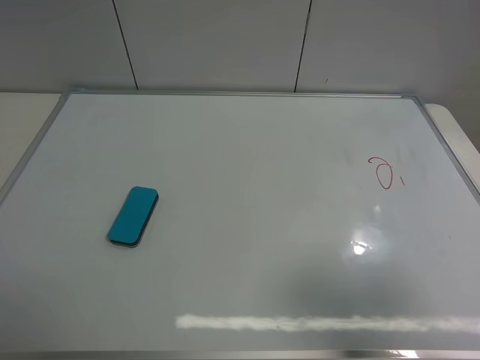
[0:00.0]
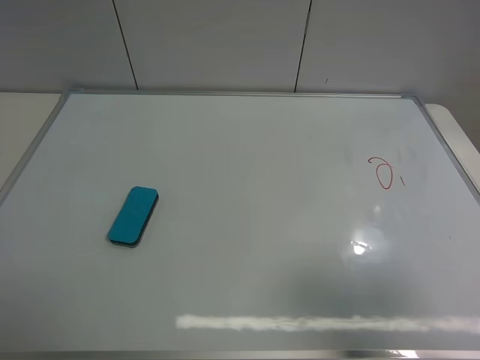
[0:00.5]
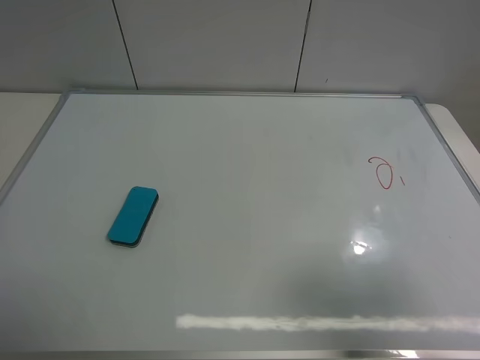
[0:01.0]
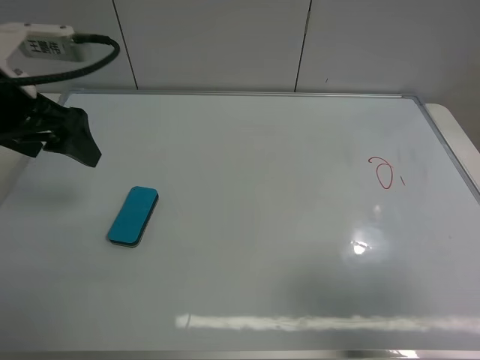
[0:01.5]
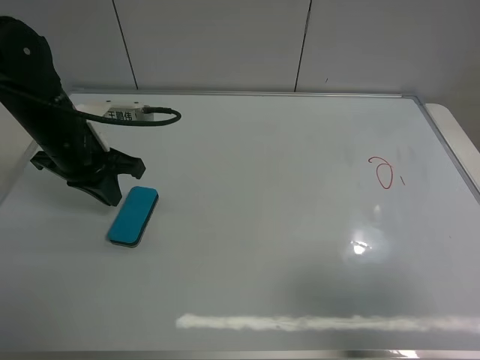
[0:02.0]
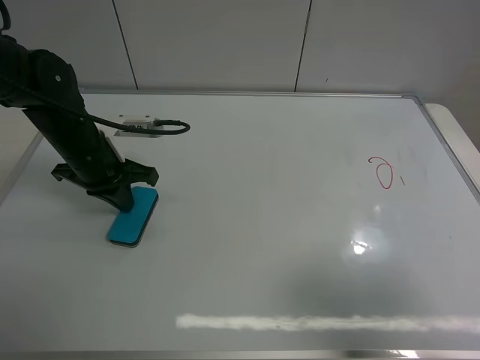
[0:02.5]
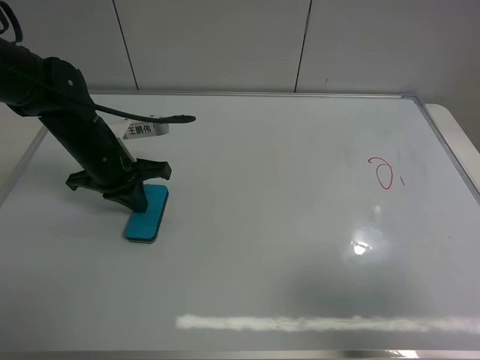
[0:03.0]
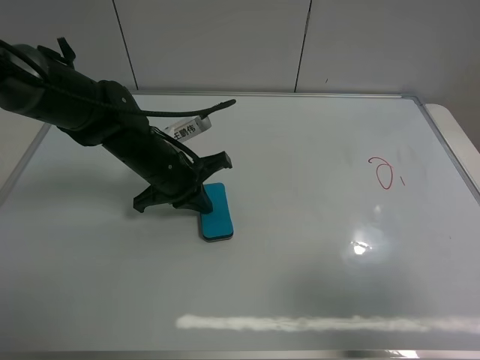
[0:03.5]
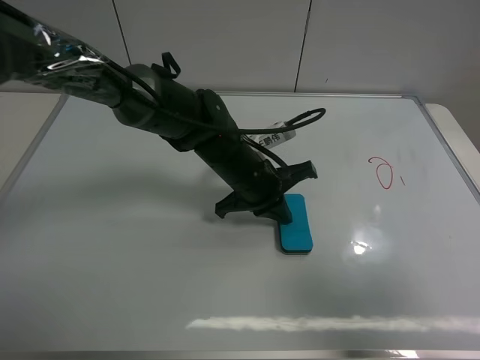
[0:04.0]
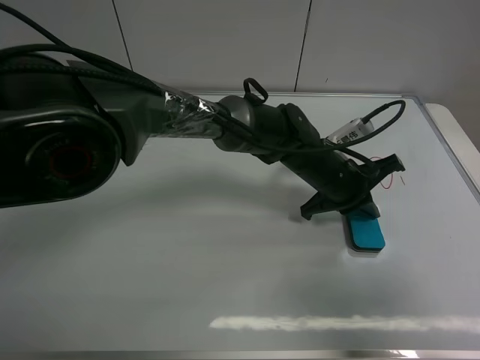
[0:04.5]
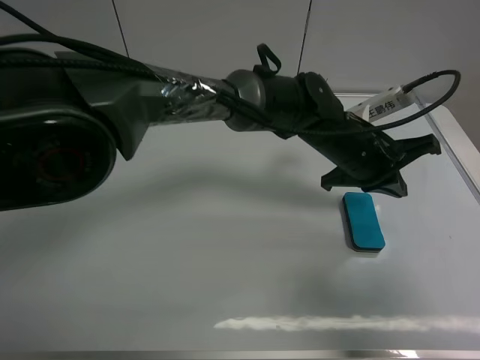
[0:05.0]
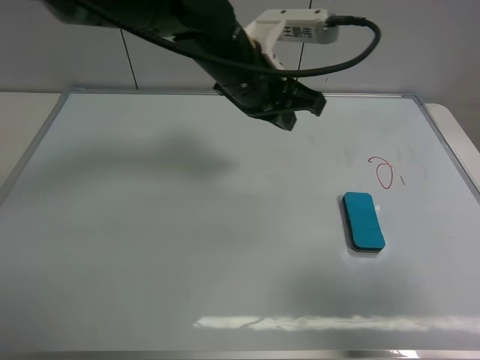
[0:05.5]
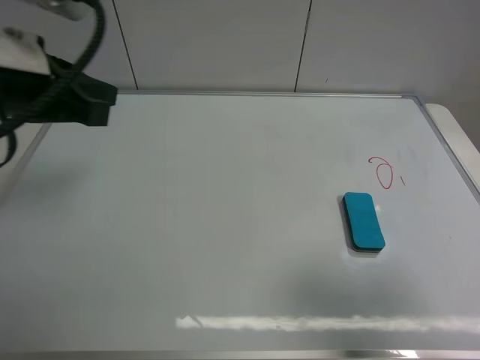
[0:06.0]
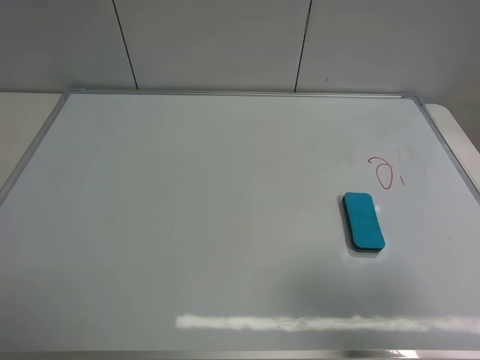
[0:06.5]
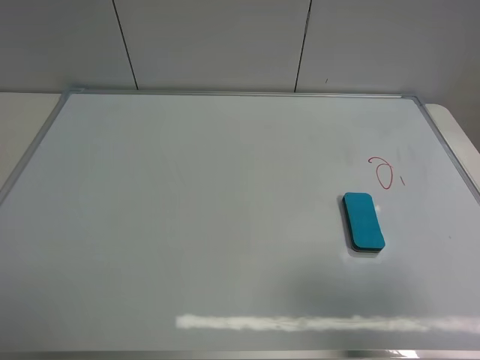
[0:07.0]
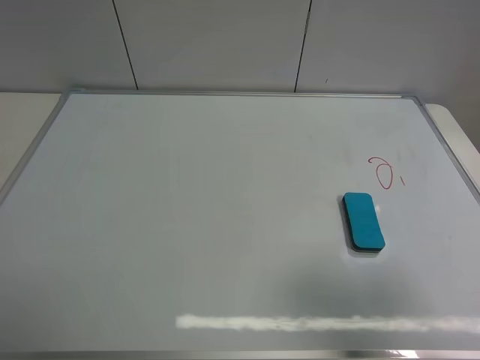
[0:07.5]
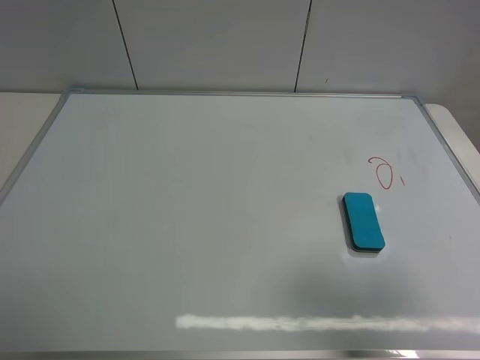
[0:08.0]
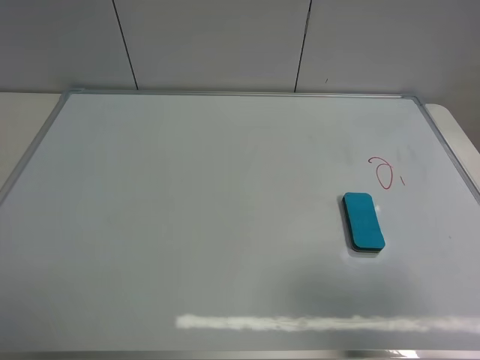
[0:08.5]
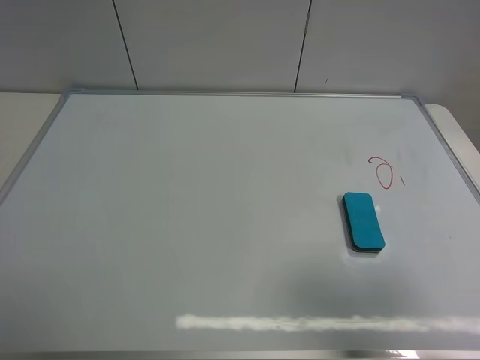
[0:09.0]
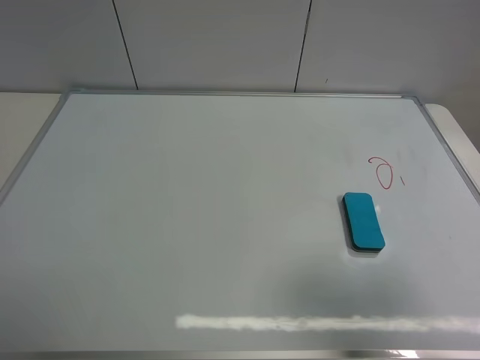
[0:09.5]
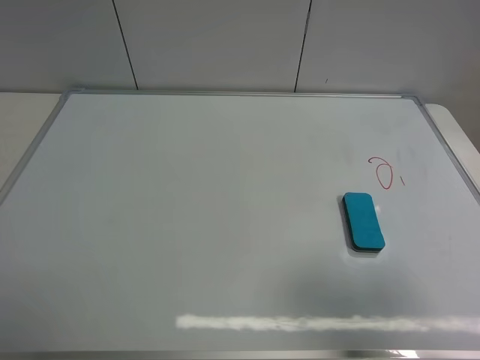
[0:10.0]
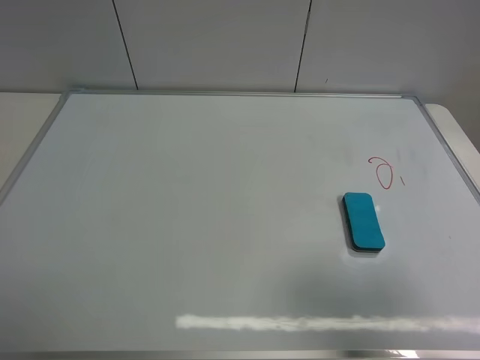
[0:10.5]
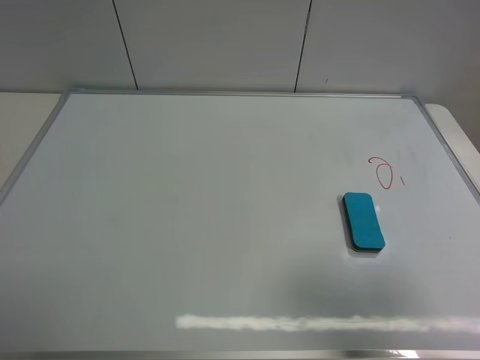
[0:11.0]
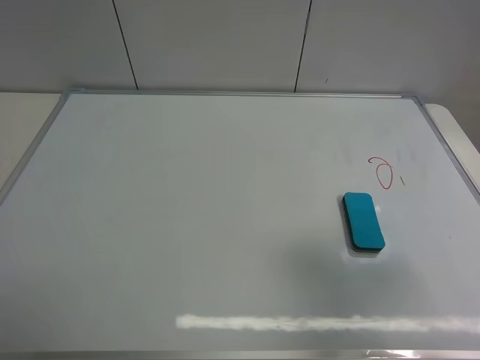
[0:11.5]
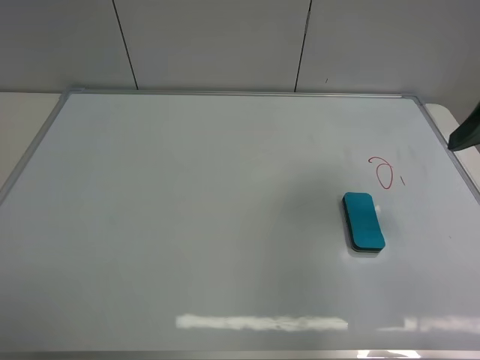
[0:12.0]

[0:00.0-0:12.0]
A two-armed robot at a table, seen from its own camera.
Task of the whole recording: use the left gripper to place the eraser in the right, use the right gripper to pick up the eraser, wipe the notes on the whiteboard clean, and then put it down.
Step, 0:00.0 to 0:04.0: Move the board eraser to the right of the whiteboard with left gripper.
0:00.0 to 0:02.0: The left gripper travels forward by roughly 30 cm, and closes.
0:02.0 to 0:04.0: The left gripper shifts roughly 20 cm to the right.
0:04.0 to 0:06.0: The left gripper is displaced to the left, upward and backward by roughly 30 cm.
0:06.0 to 0:08.0: The left gripper goes approximately 20 cm backward and to the left, and opens up.
0:10.0 to 0:12.0: The right gripper goes approximately 20 cm forward.

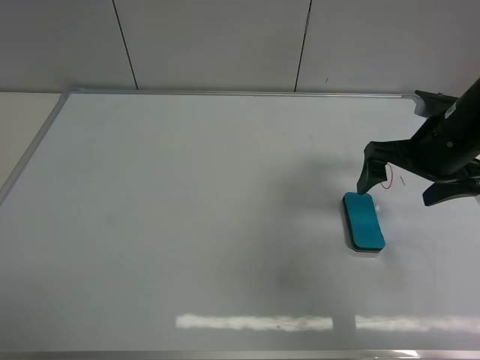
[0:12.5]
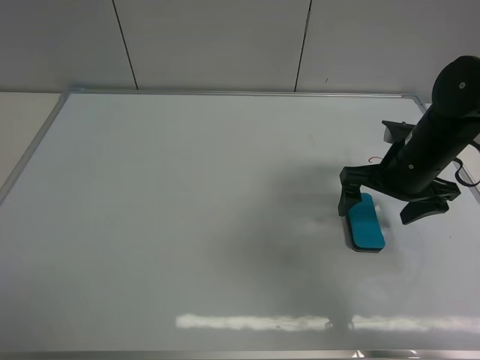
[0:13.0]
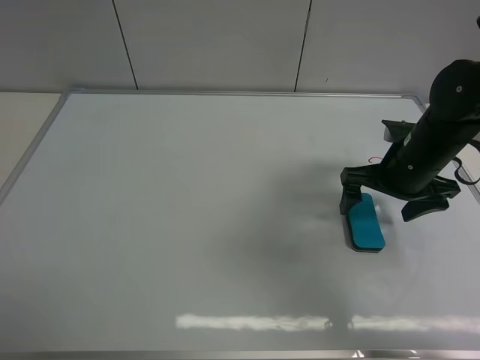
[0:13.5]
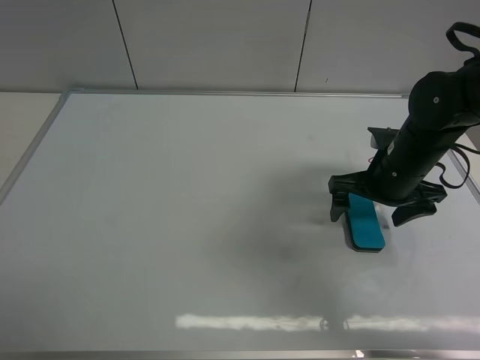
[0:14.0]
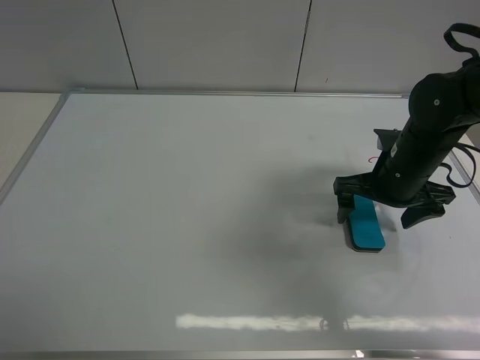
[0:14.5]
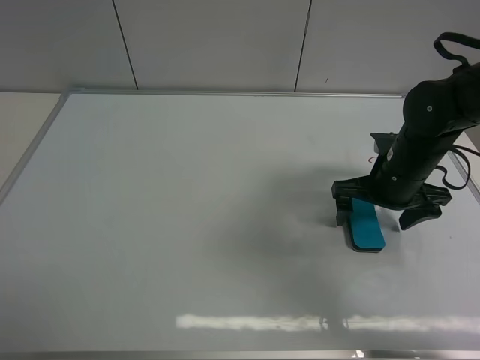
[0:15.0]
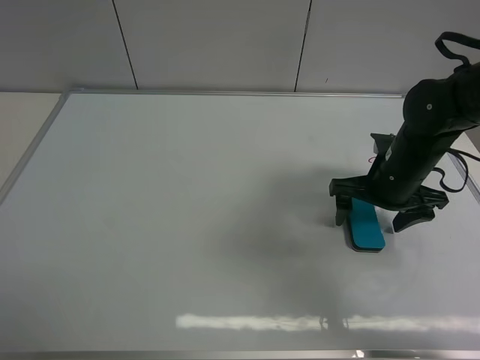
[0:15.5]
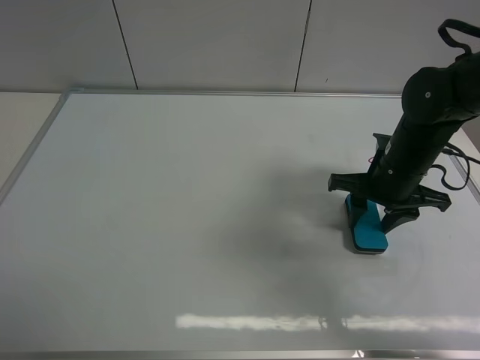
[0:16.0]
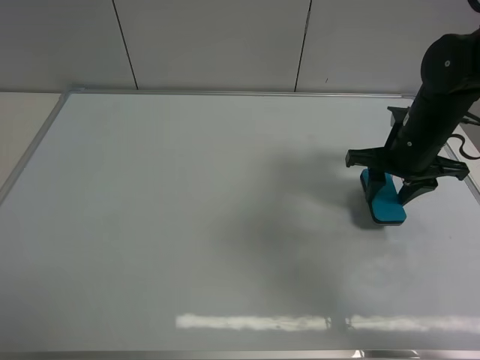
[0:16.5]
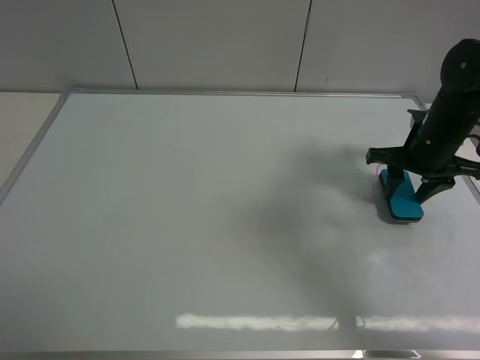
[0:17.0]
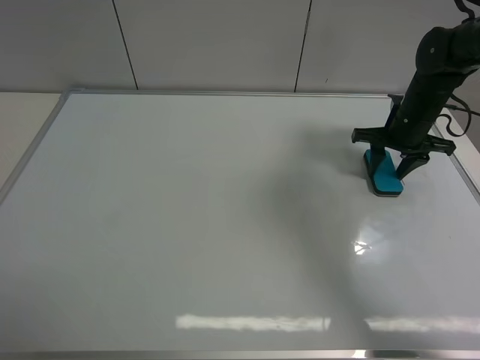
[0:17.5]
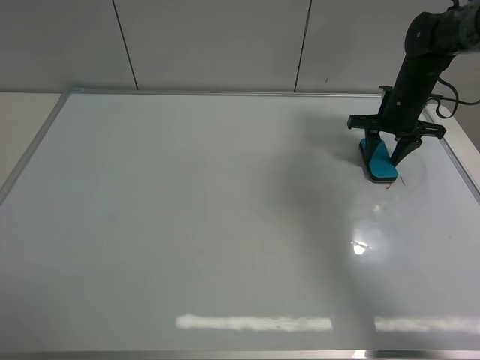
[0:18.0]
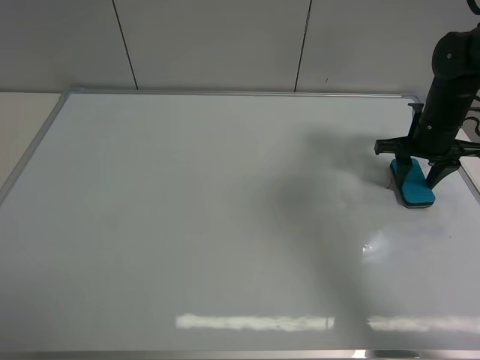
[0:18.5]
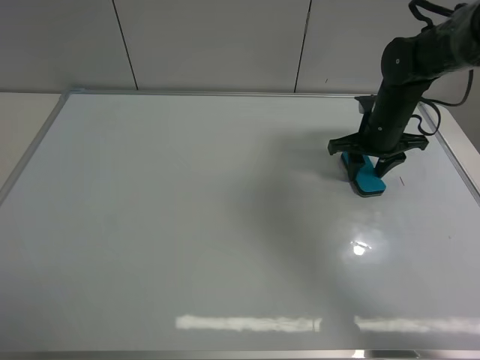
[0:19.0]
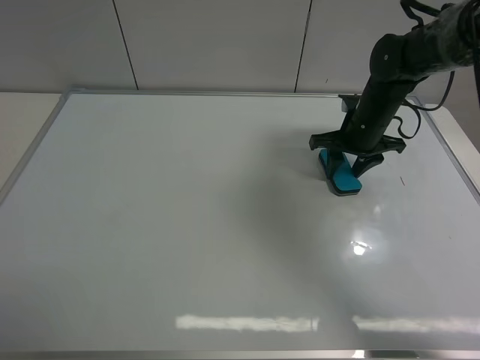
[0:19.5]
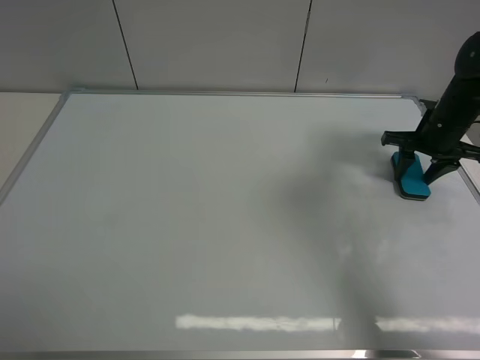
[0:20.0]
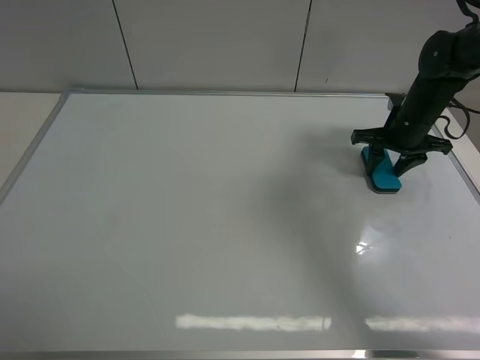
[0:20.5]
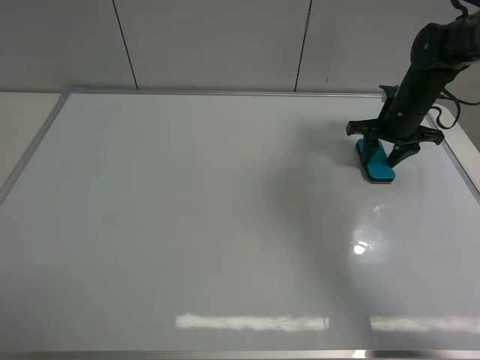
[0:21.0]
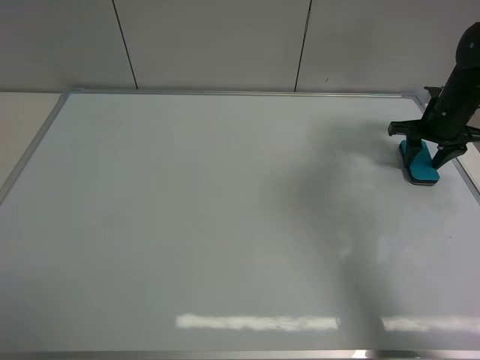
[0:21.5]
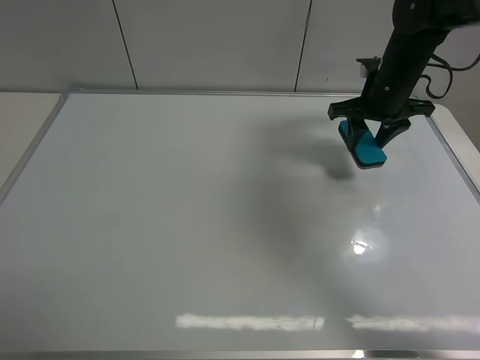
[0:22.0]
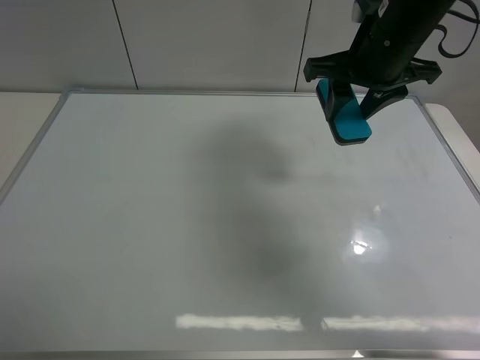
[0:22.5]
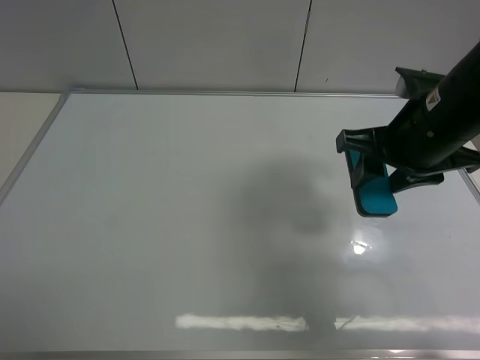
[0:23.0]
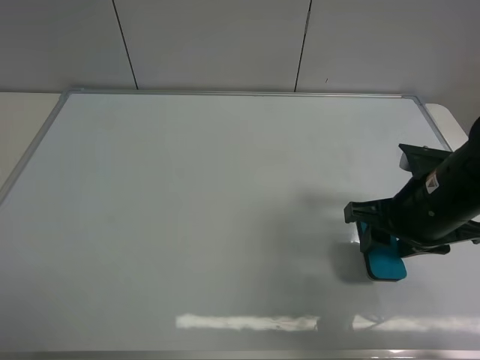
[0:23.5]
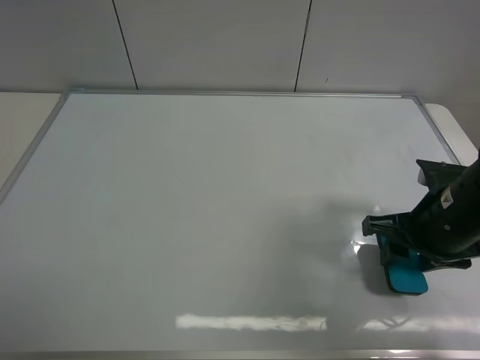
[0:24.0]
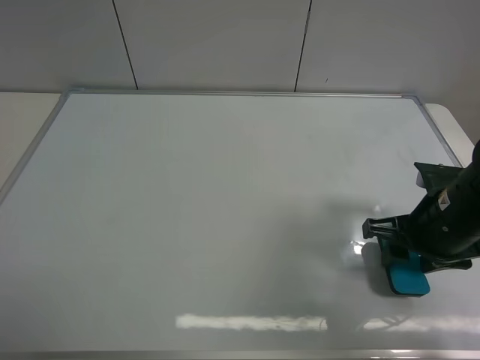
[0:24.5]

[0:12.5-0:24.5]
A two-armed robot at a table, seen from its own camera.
Task of the whole recording: use the left gripper to place the eraser in the right, use the right gripper to pick up the eraser, wipe the notes on the whiteboard clean, and then put it down.
Step, 0:12.5 to 0:16.5: Pick up the board eraser with right gripper.
Step, 0:17.0 to 0:21.5: Wipe off the writing on the board with right gripper.
0:12.5 to 0:14.5: The right gripper travels downward by some 5 cm.
0:14.5 to 0:16.5: The right gripper closes its fingers.
0:16.5 to 0:18.5: The right gripper travels to the right and forward by roughly 10 cm.
0:18.5 to 0:20.5: The right gripper goes left and right, about 15 cm each way, reversing 2 times.
0:20.5 to 0:22.5: The right gripper shifts roughly 20 cm upward, to the left and backward.
0:22.5 to 0:24.5: The right gripper is displaced downward, backward and to the right by approximately 20 cm.

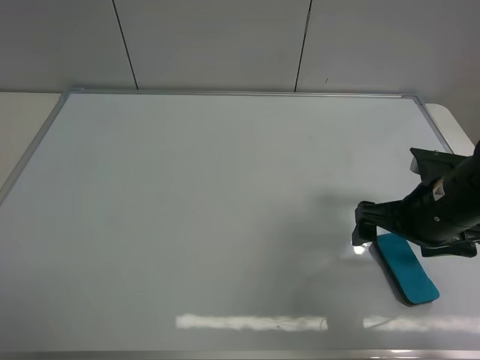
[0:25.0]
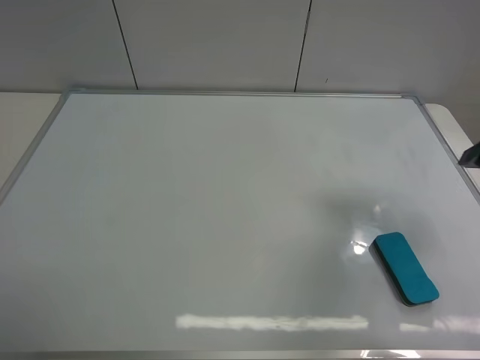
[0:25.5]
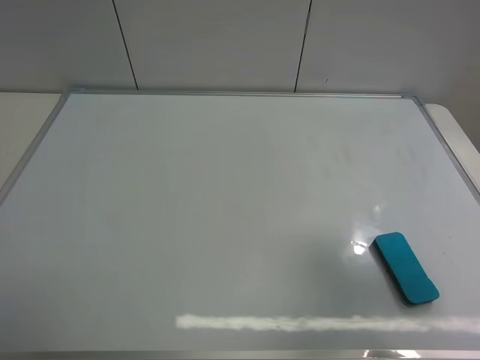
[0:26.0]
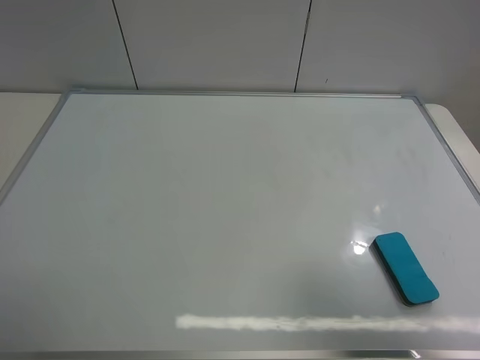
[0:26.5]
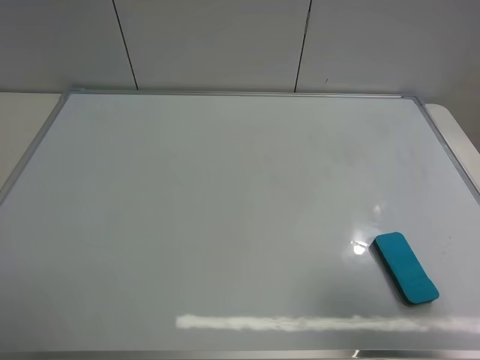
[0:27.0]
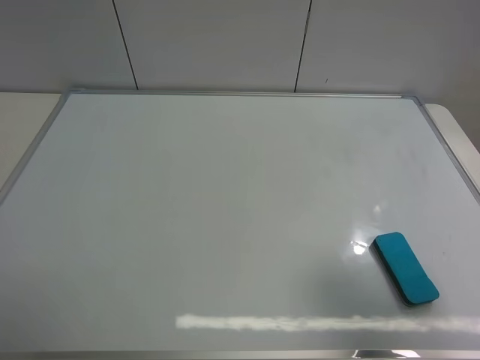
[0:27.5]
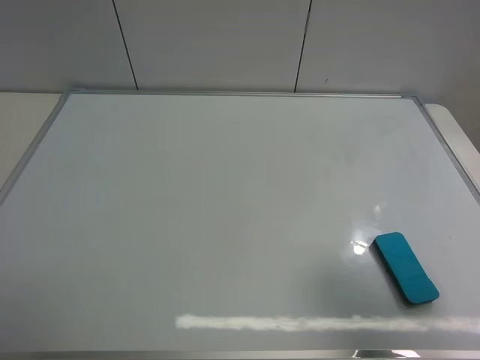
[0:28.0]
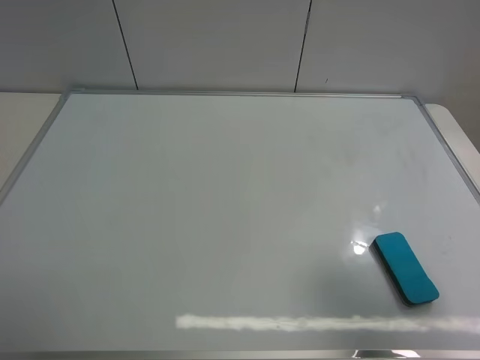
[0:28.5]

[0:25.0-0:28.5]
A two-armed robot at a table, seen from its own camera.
Task of the whole recording: use the left gripper to place the eraser in the right, use the right gripper to pick up the eraser, wipe the notes on the whiteboard clean, and then put it down.
0:25.0 to 0:27.0: The right gripper travels backward and upward by some 25 cm.
0:27.0 to 0:28.5: Both grippers stay put.
